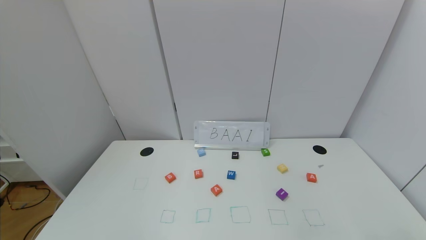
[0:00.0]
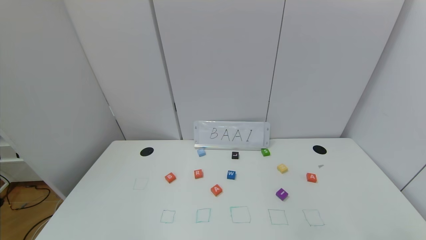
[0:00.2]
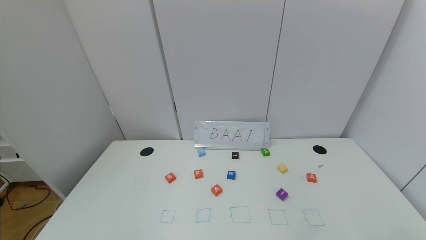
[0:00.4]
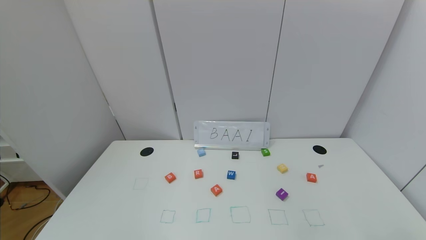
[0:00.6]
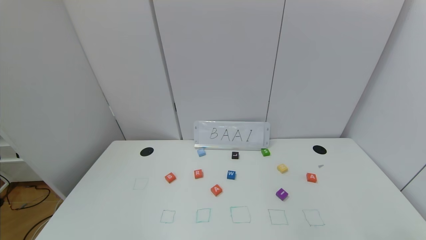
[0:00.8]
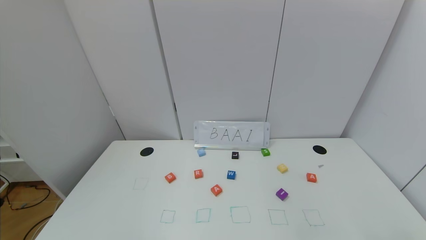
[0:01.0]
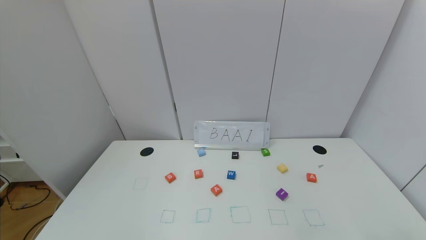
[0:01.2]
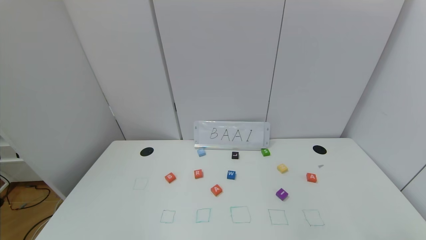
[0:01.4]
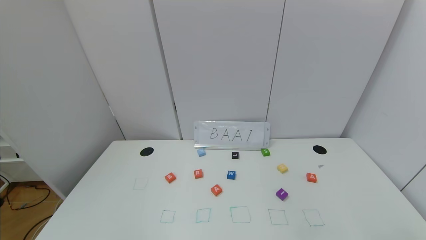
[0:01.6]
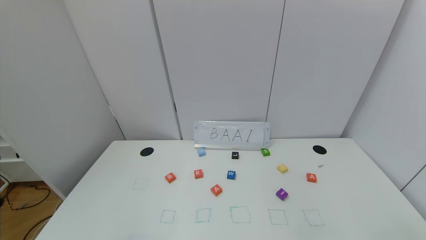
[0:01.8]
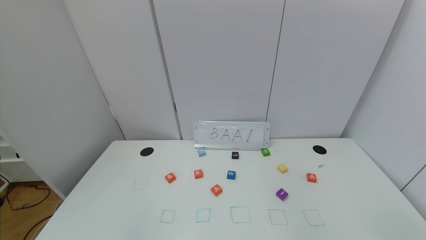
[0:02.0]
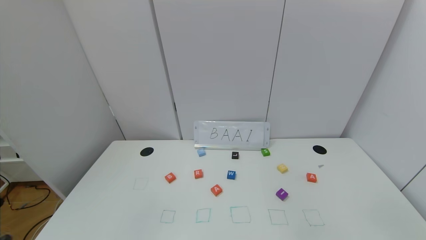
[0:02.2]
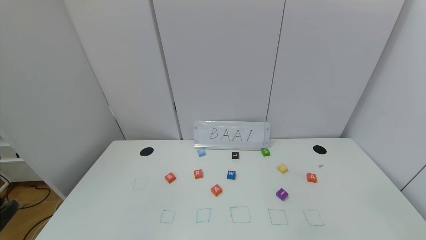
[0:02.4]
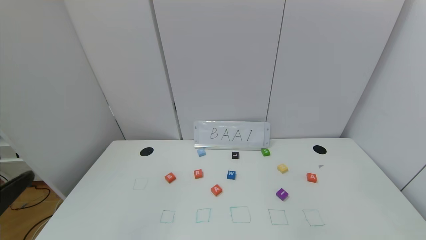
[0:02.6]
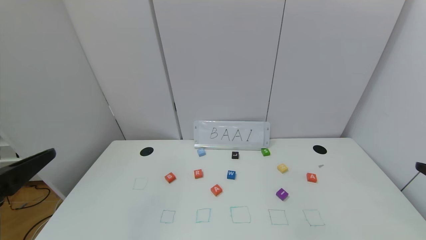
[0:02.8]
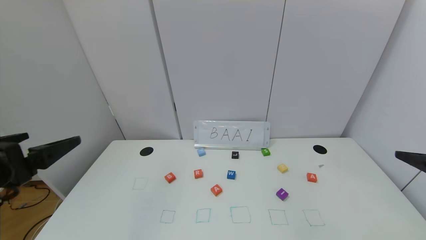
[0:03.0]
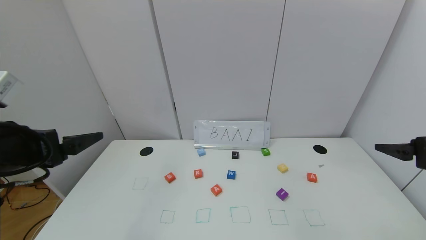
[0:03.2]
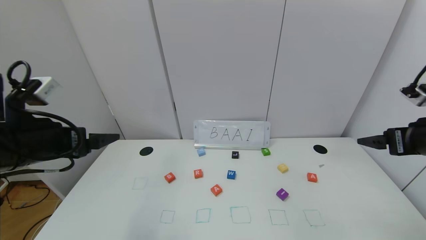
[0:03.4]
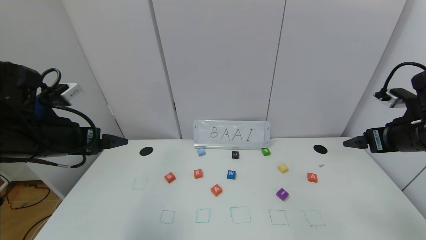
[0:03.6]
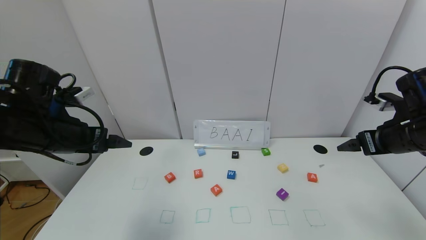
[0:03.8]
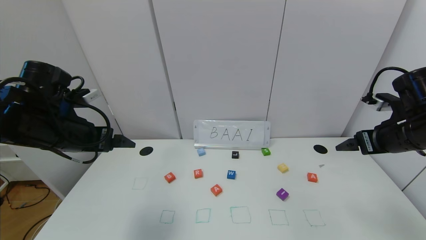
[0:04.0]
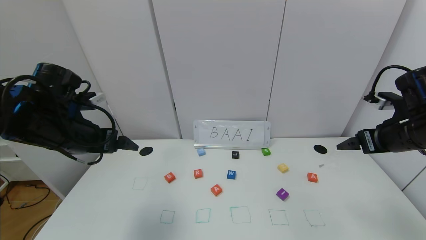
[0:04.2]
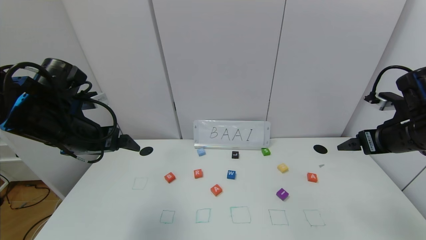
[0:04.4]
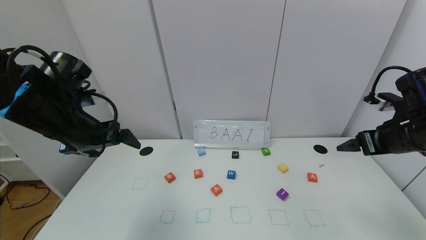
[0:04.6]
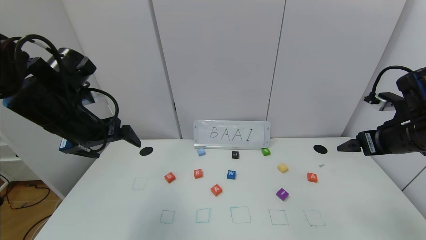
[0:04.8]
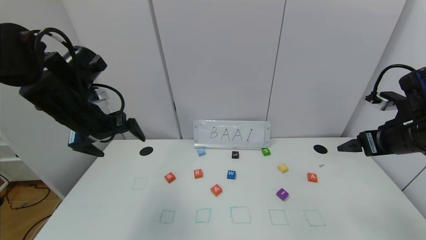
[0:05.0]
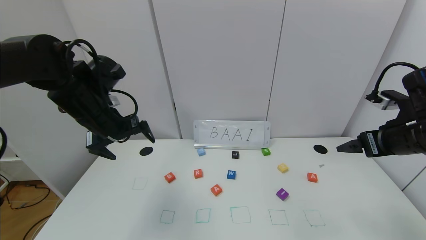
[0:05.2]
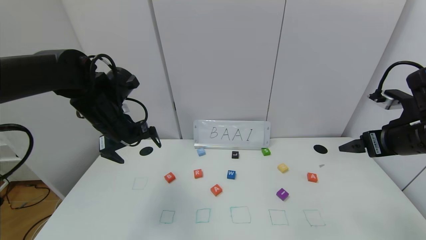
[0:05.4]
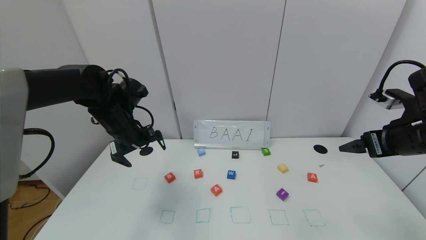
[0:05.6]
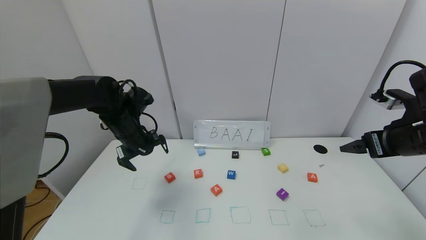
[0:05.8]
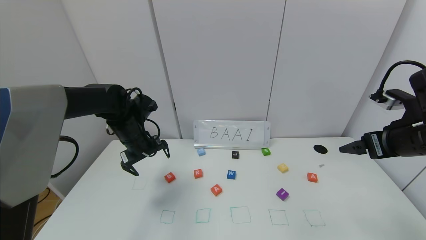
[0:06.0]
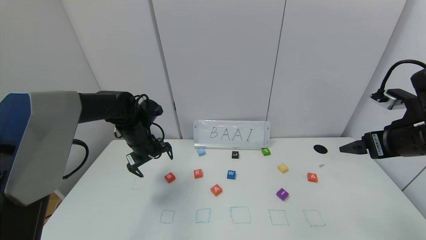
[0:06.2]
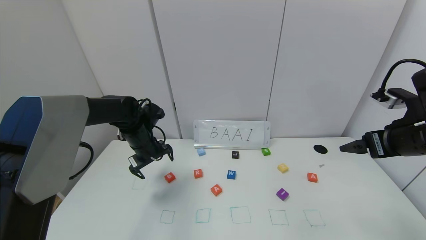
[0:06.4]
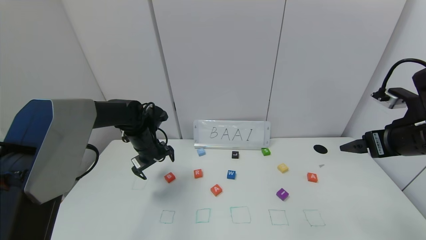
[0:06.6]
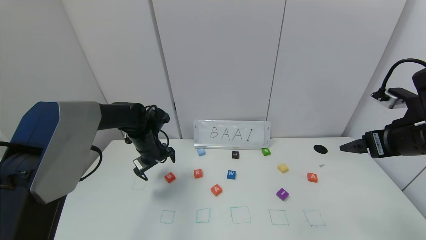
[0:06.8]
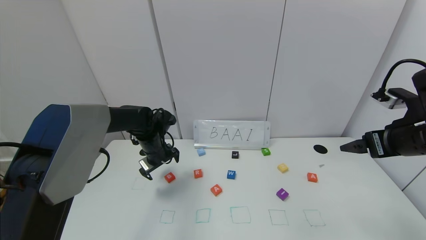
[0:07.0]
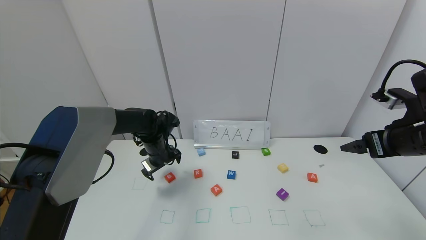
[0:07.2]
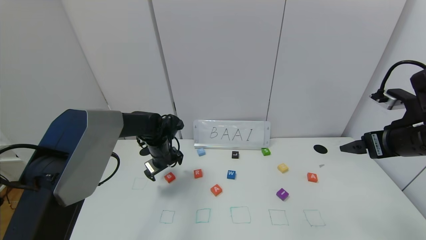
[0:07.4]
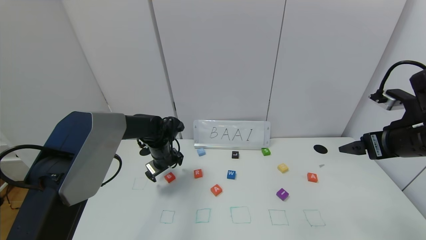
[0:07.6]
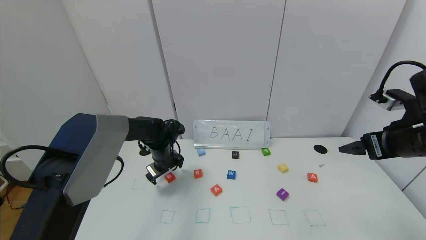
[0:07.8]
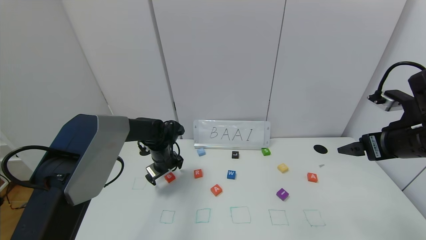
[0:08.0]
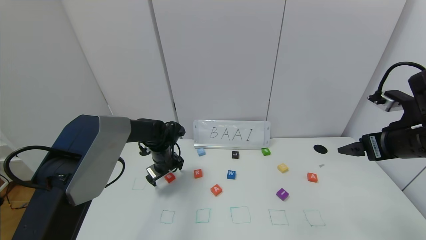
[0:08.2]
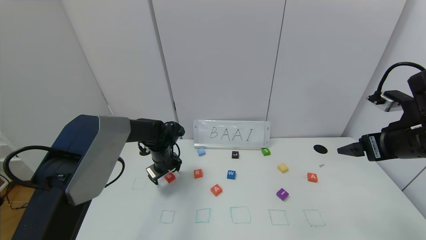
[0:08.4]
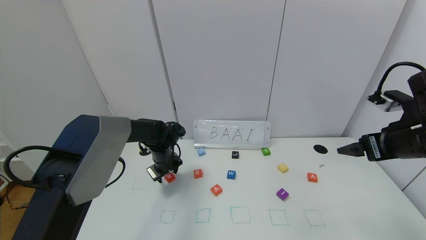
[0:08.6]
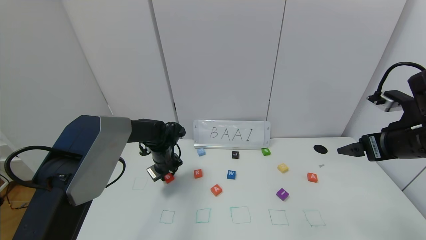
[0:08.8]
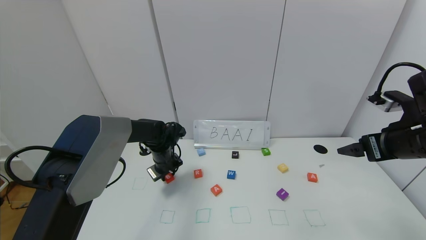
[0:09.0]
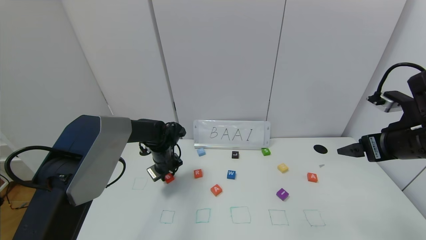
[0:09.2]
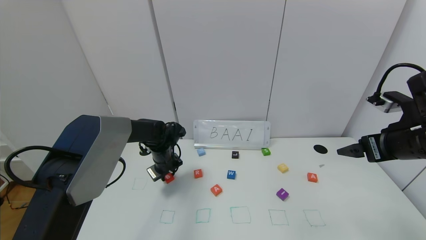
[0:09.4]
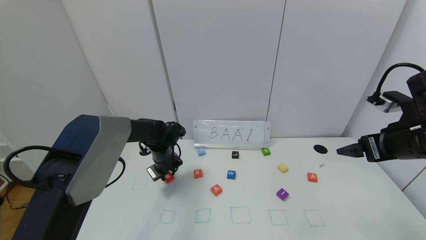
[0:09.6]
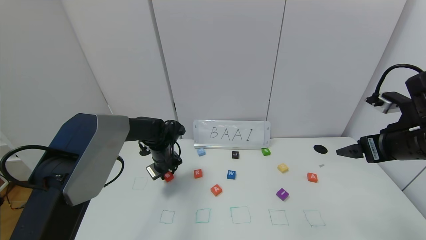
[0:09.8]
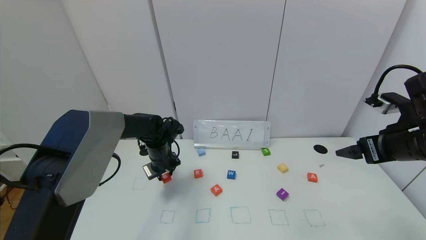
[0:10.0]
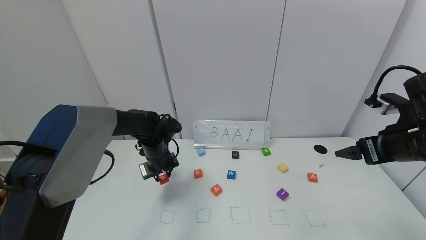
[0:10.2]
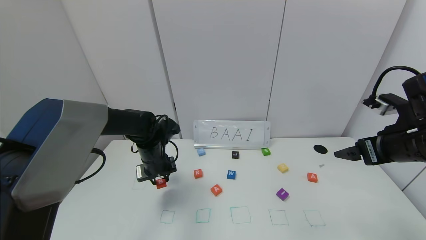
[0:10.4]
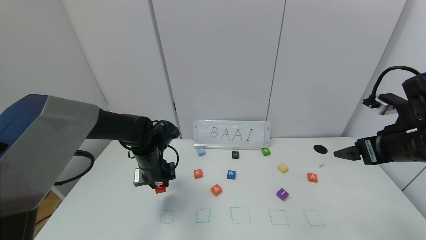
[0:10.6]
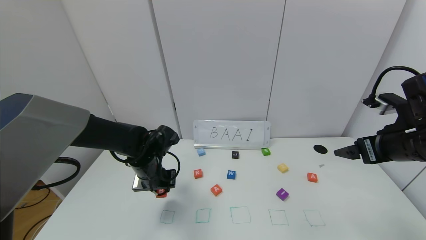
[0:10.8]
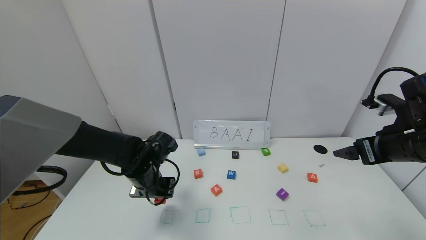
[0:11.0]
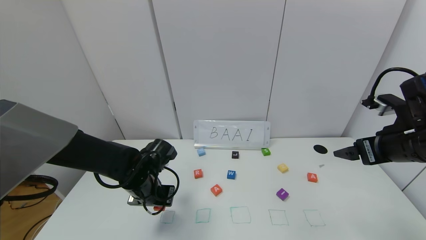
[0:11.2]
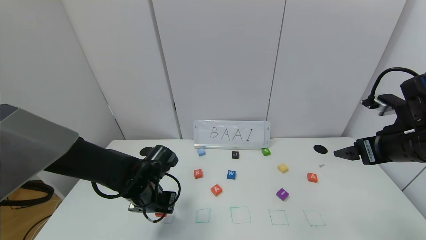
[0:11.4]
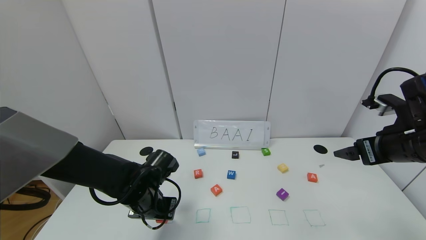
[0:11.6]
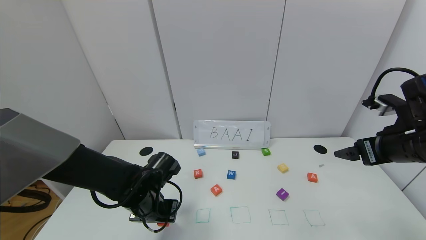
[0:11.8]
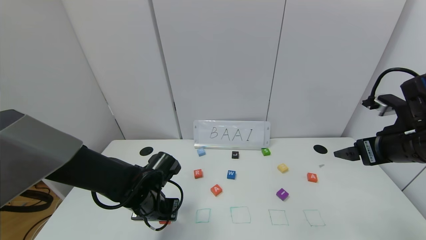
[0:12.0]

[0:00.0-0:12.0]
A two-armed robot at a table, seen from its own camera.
Task of the whole recording: use the gripper to find blocks with the letters b, a, a, and i on the table and arrange them into BAAI, then find r and N and turn the arranged baai into brian.
0:01.6 to 0:03.0: The left gripper heads upward and forward, covering some 25 cm.
0:03.0 to 0:04.4: The grippers both shift forward by roughly 15 cm.
0:04.4 to 0:06.0: The left gripper is displaced forward and downward by about 15 cm.
0:06.0 to 0:07.6: The left gripper is displaced downward by about 10 cm.
0:07.6 to 0:09.0: The left gripper closes.
0:09.0 to 0:10.4: The left gripper is displaced backward by about 5 cm.
0:10.4 to 0:12.0: The left gripper travels backward by approximately 10 cm.

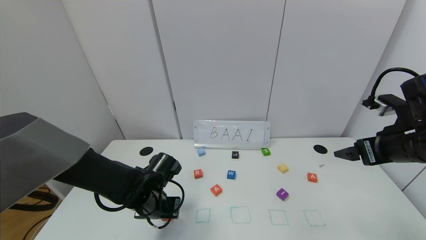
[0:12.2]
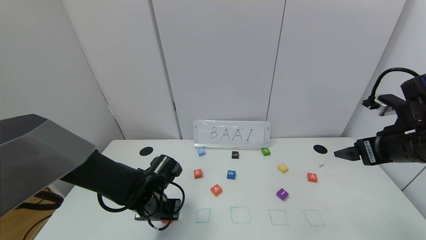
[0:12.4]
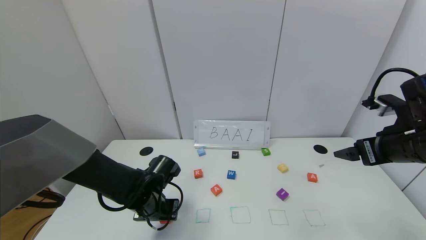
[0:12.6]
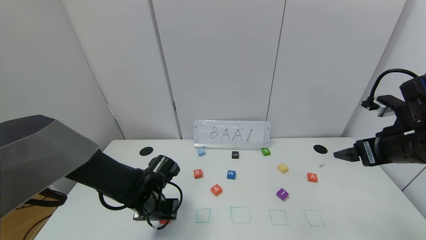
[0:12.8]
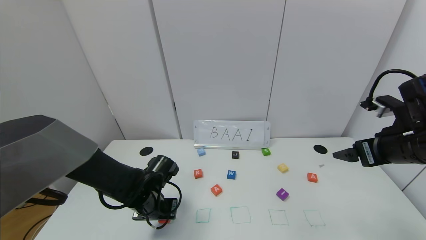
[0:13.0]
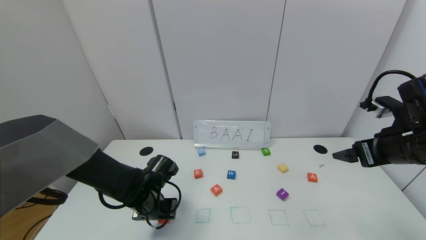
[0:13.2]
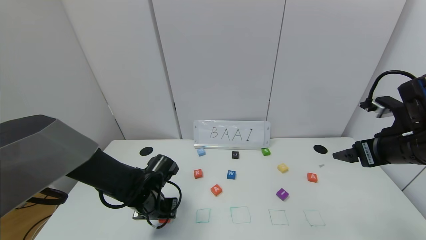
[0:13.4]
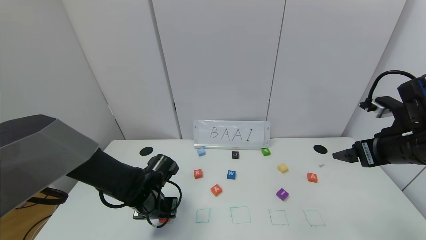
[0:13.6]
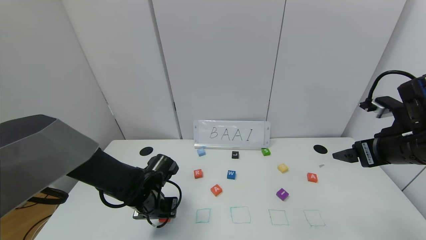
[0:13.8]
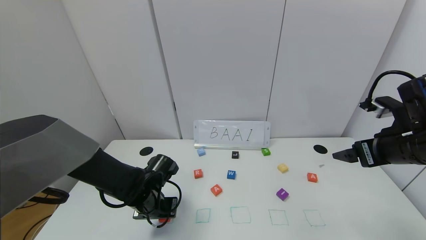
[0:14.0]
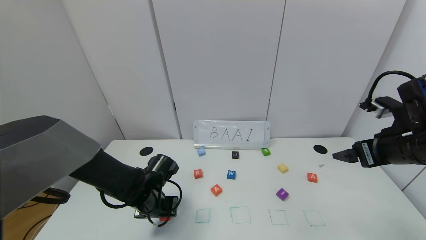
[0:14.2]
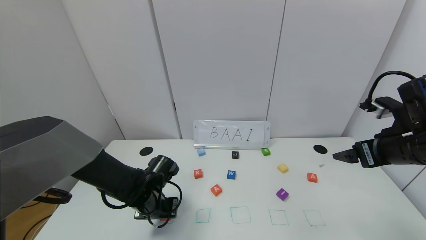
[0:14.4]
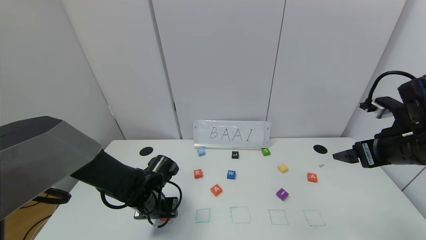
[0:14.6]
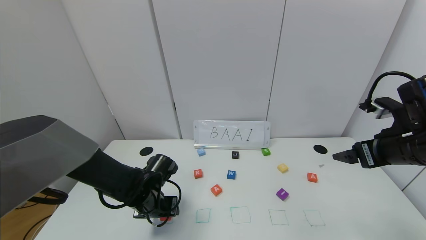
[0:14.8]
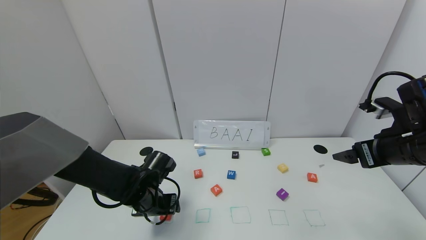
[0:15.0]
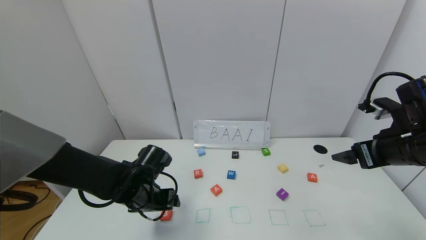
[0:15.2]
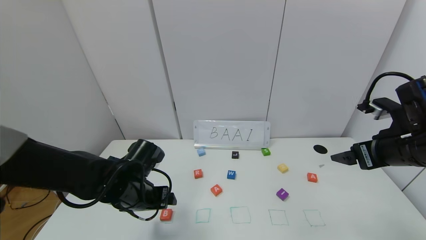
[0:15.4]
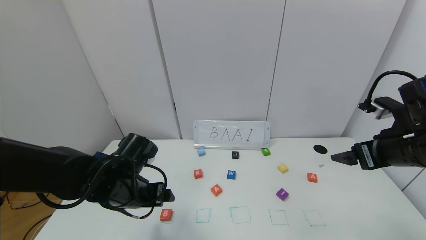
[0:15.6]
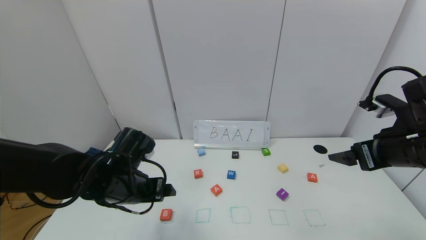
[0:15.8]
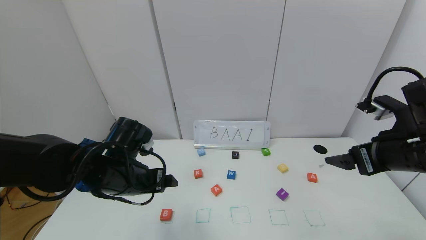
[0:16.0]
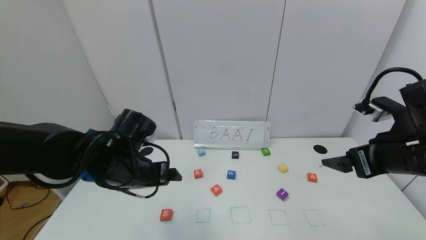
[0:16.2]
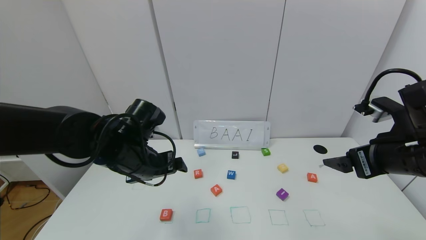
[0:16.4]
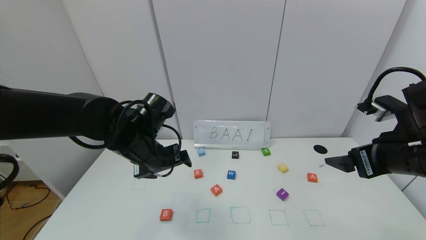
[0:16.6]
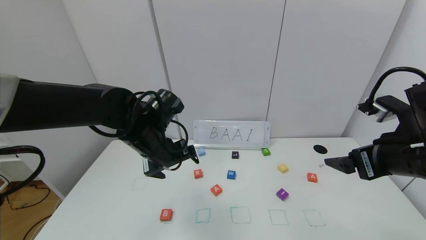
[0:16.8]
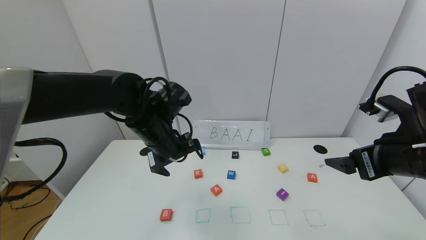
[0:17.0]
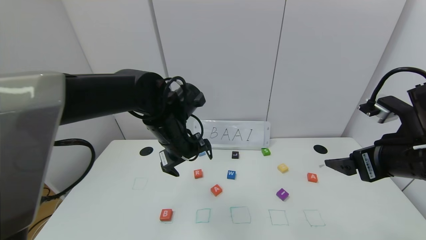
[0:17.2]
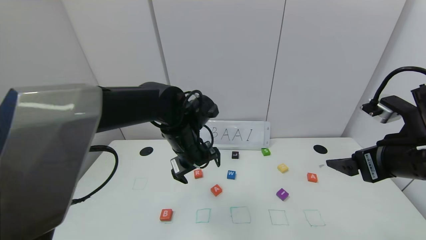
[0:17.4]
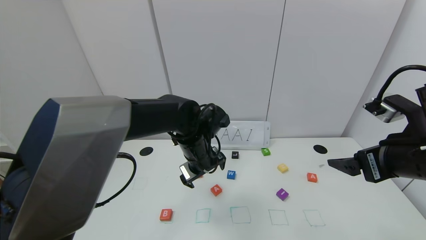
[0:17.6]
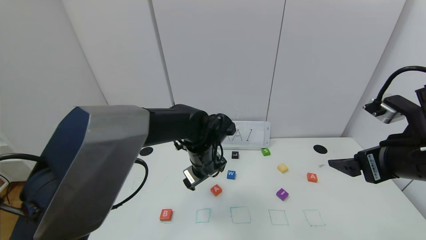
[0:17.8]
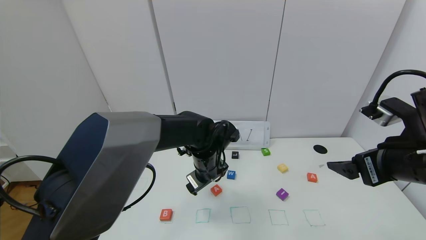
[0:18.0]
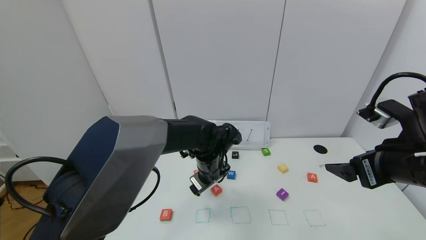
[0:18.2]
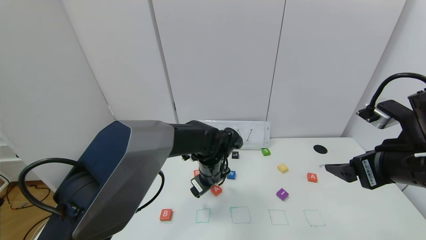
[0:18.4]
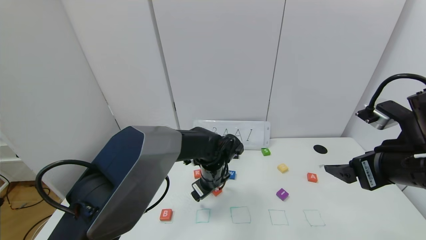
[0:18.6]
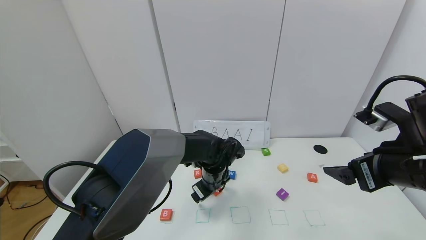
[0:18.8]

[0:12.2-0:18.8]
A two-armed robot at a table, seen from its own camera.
Task of the whole recording: use the gripper to find blocks with the letters b, a, a, and i on the table and arrange them into BAAI, then find r and N and turn the arranged baai into brian.
Step, 0:12.2 to 0:14.6: Place the block B in the first location.
0:12.2 to 0:13.8: There are only small adjustments of the grippers.
0:13.8 to 0:15.4: The left gripper is displaced upward by roughly 5 cm, and opens.
0:15.4 to 0:17.2: The left gripper moves upward, to the right and forward, roughly 15 cm. The right gripper changes place by about 5 cm.
0:17.2 to 0:18.8: The left gripper is displaced downward and to the right by about 15 cm.
